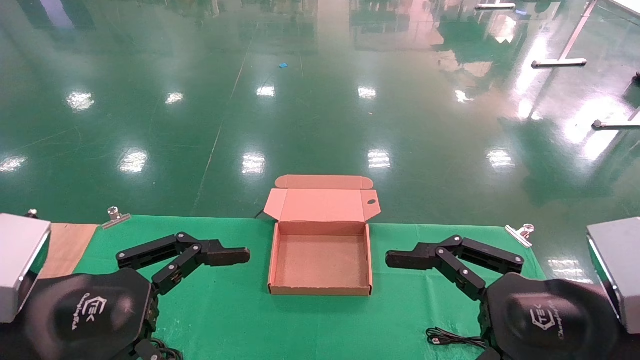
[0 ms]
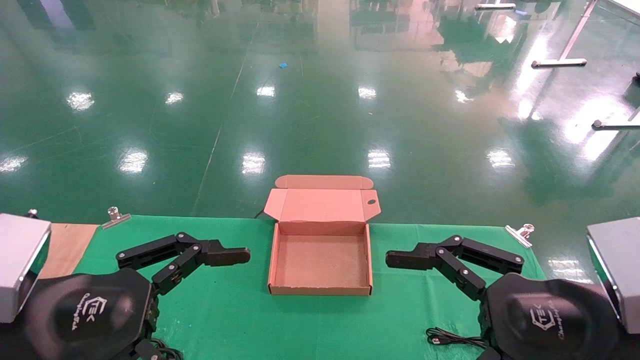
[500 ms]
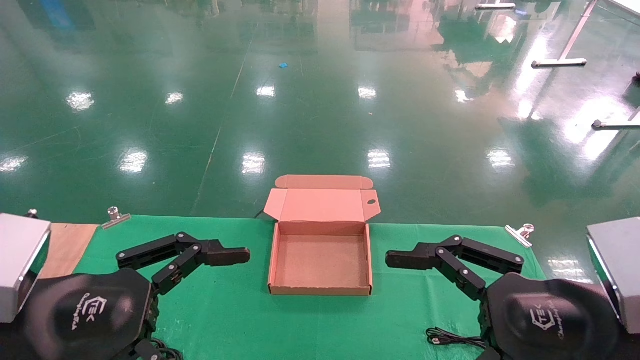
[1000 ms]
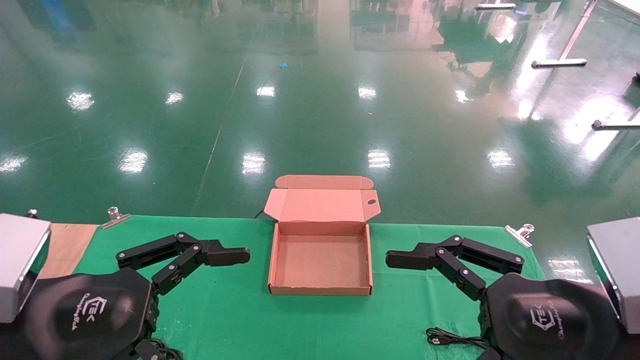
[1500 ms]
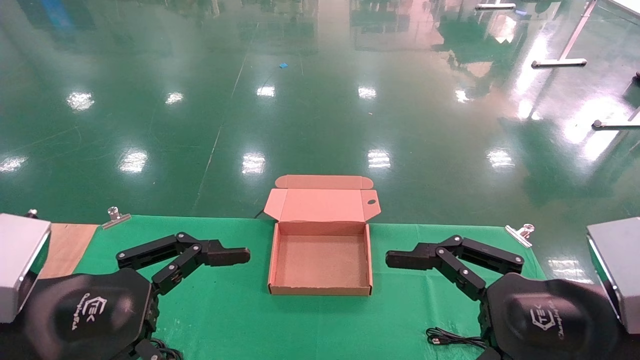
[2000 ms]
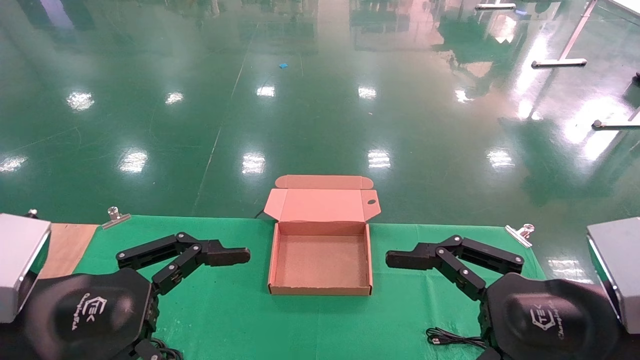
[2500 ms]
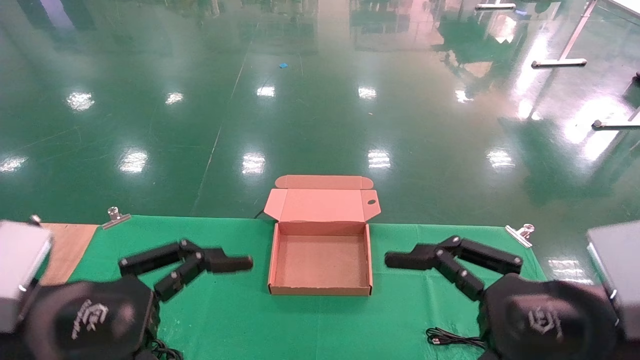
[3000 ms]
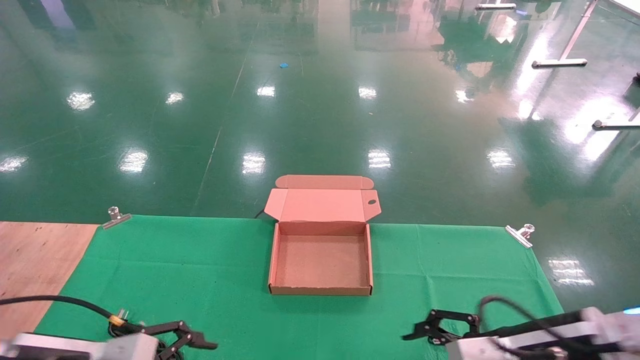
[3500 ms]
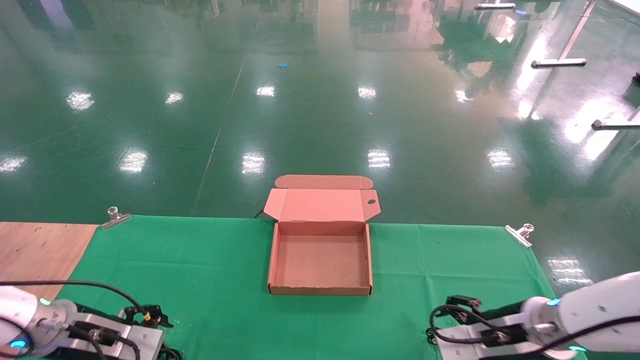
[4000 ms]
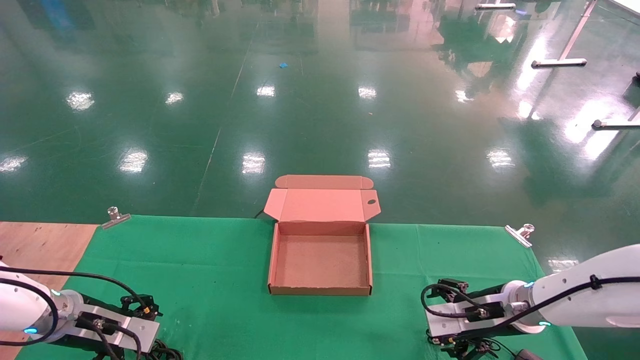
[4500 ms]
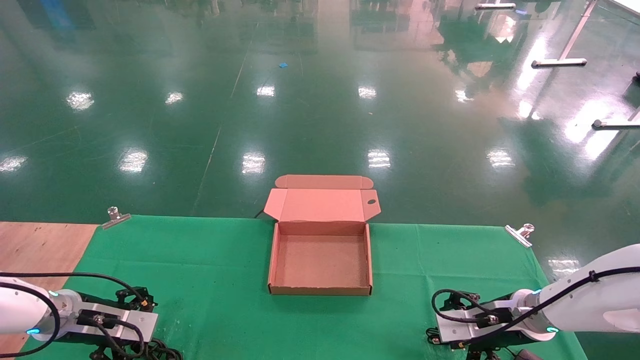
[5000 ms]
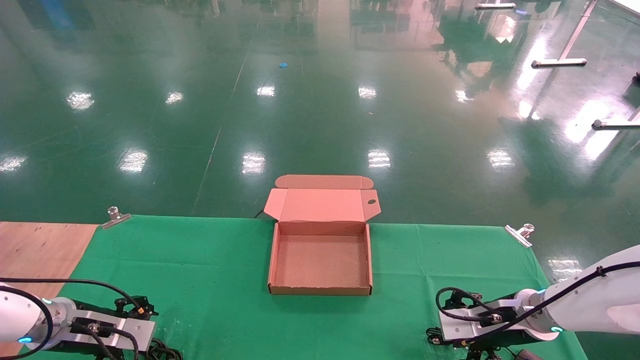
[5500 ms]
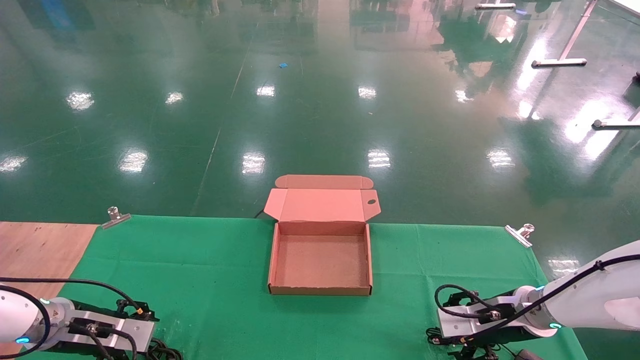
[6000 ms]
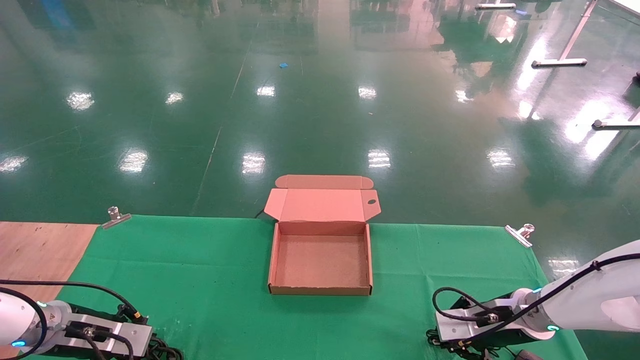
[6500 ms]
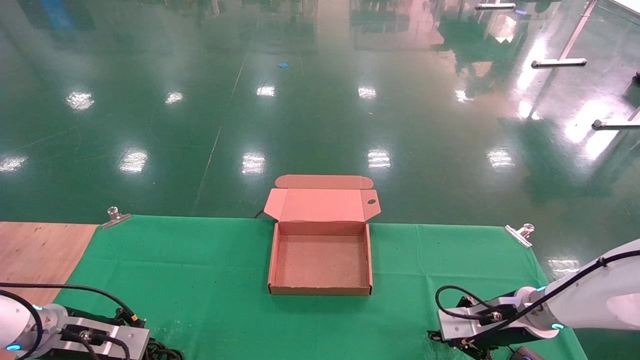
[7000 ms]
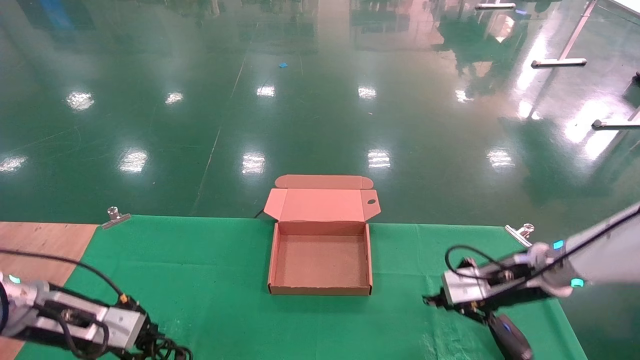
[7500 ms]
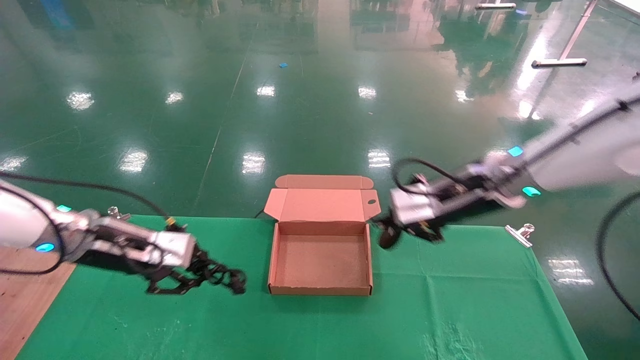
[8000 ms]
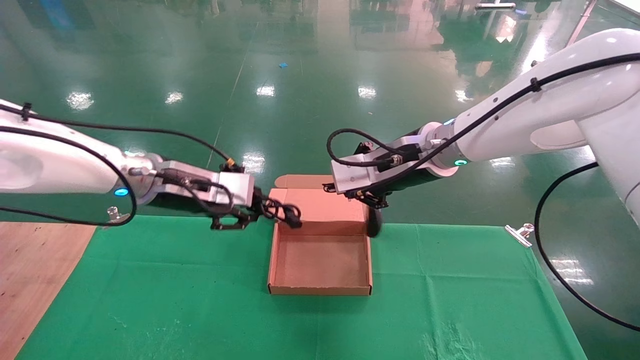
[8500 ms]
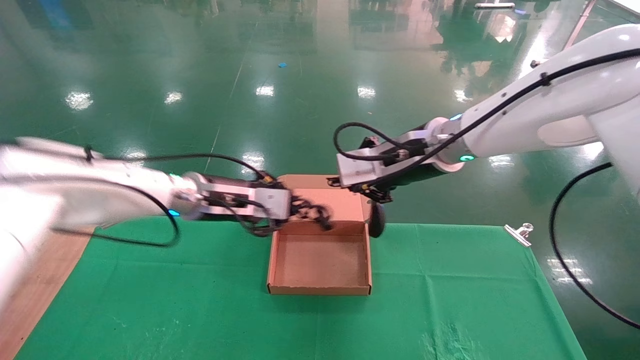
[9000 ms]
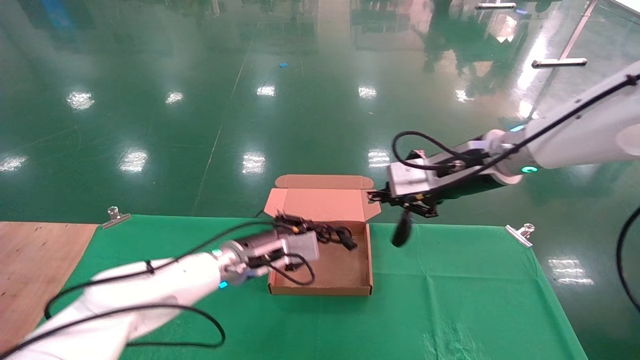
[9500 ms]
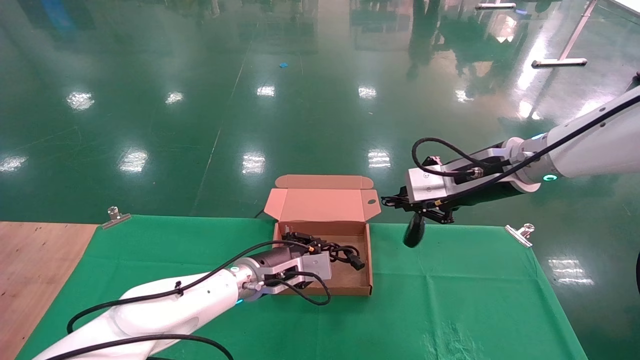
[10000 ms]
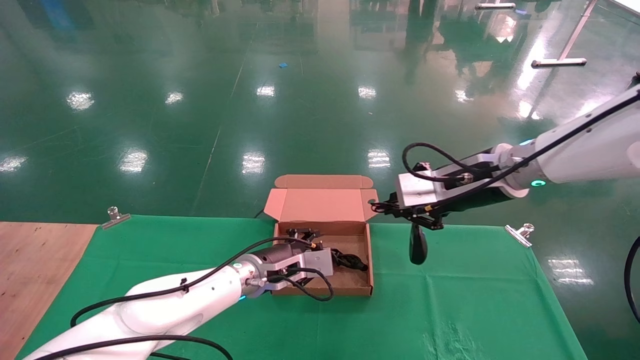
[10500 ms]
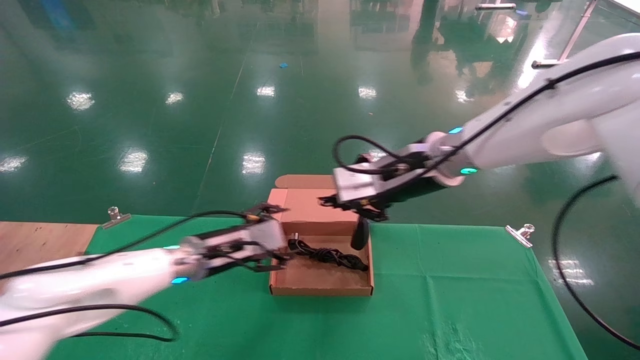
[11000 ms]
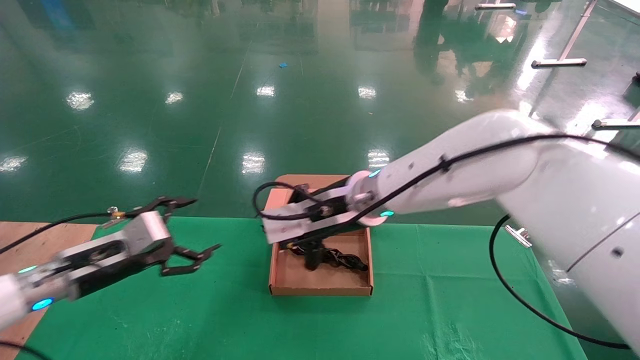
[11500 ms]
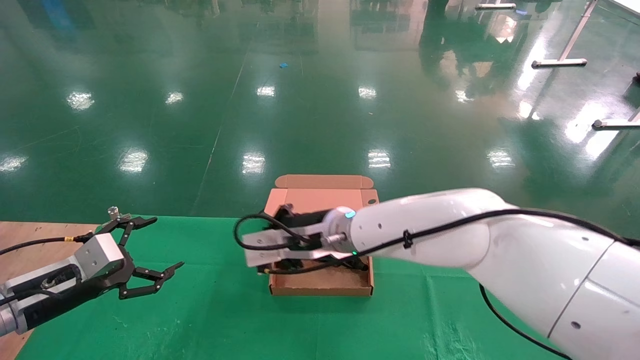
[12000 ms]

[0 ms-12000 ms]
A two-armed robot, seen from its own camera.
Step, 4000 ms to 7500 ms: Grab and lift both the mouse and power cord from the accessory packaging area at the same time.
0 ms to 2000 ms: Neither gripper changes place.
2000 ms to 4000 ms: The left gripper shifts some 25 cm forward, downward and to the left. The right gripper goes approximately 20 cm forward and downward.
4000 ms to 6000 ms: The left gripper ends up some 5 cm from where it was, while the right gripper moves forward, about 5 cm.
6000 ms to 8000 ms: The right gripper shifts about 25 cm upward and to the left, and closes up; the left gripper moves upward and to the right, approximately 20 cm, and closes.
8000 ms to 10000 ms: The right gripper travels to the left and back again, roughly 5 cm each way; the left gripper shifts some 25 cm to the right, downward and forward.
10000 ms to 12000 ms: The left gripper shifts roughly 30 cm to the left, and opens. Meanwhile the right gripper shifts about 25 cm to the left and downward.

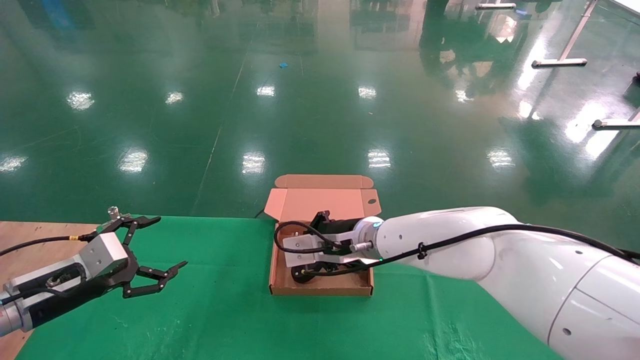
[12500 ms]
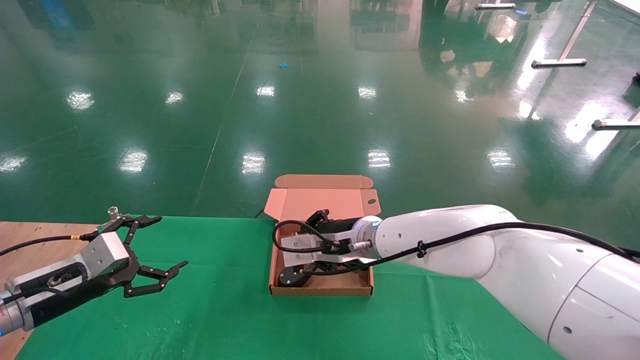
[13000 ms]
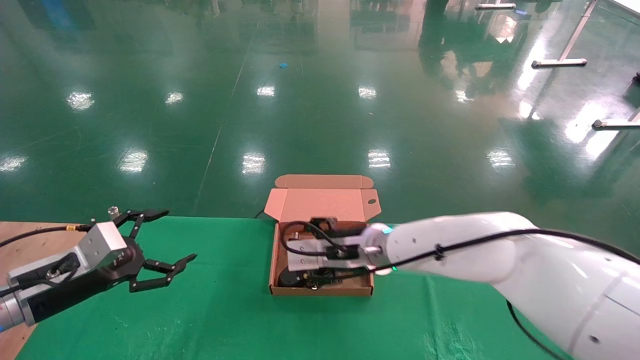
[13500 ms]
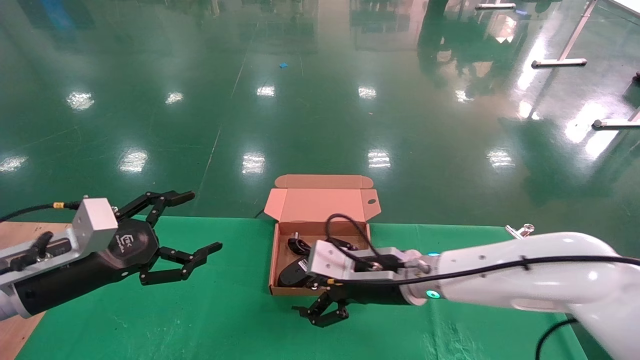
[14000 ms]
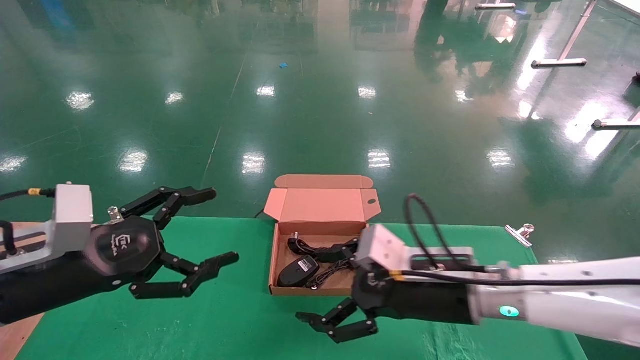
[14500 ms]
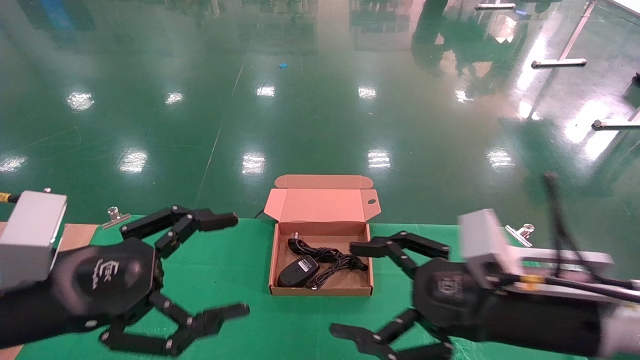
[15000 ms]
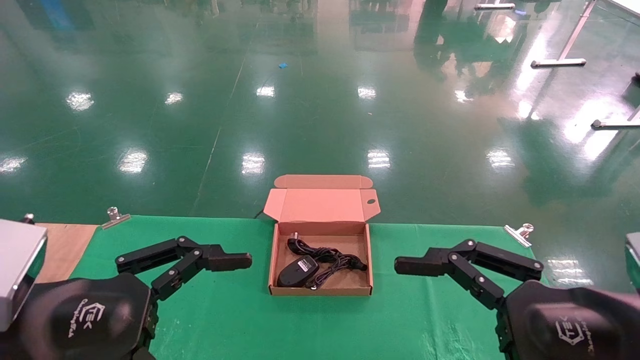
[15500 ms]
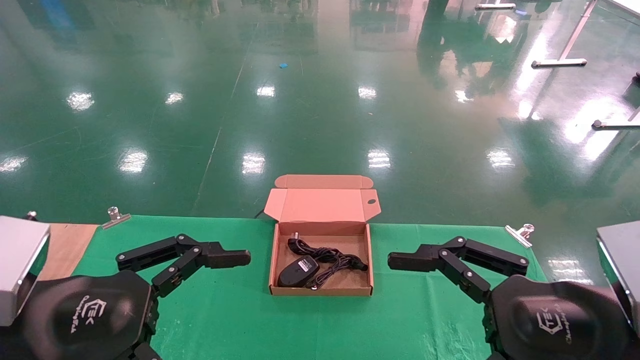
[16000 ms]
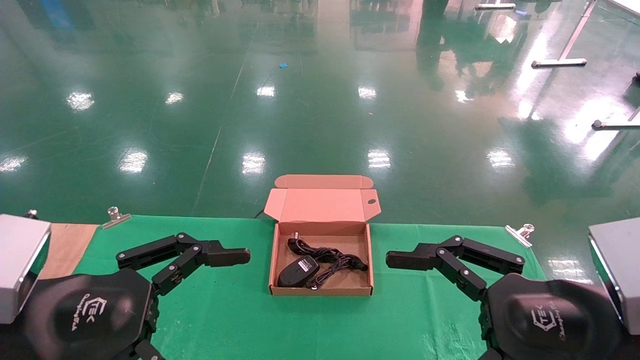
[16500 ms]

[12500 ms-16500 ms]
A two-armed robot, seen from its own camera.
12500 ms to 14500 ms: The right gripper is displaced backward and to the right by approximately 15 cm, and opens its fingers. The left gripper goes some 15 cm to the right, upward and backward.
14500 ms to 16500 ms: The left gripper moves backward, about 10 cm; the right gripper is displaced backward and to the right by roughly 20 cm.

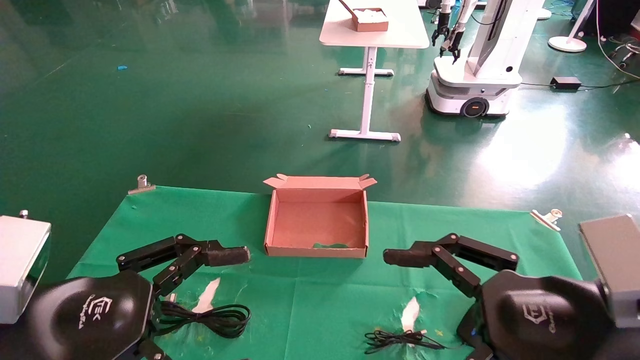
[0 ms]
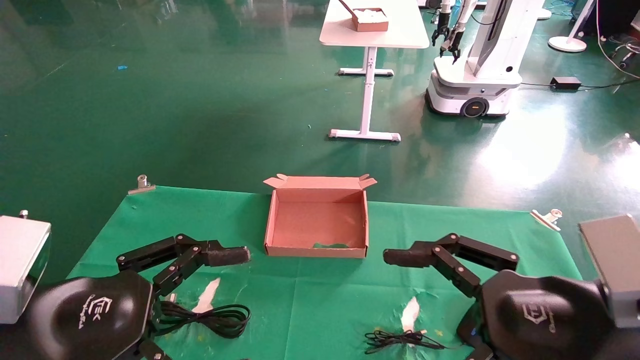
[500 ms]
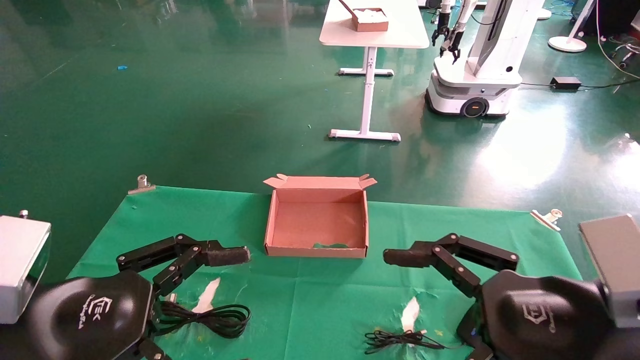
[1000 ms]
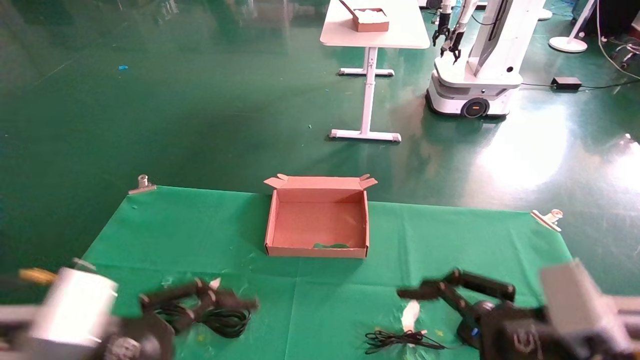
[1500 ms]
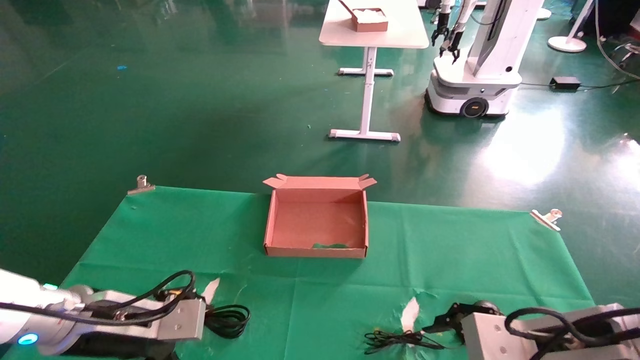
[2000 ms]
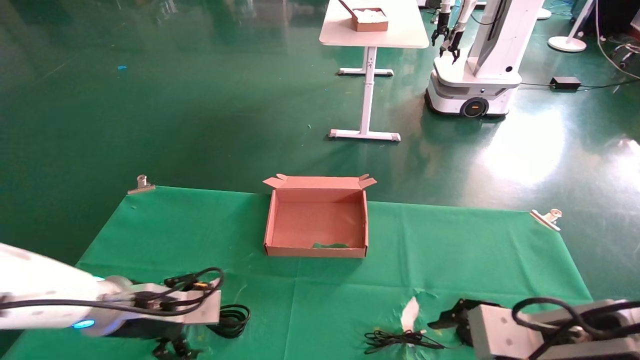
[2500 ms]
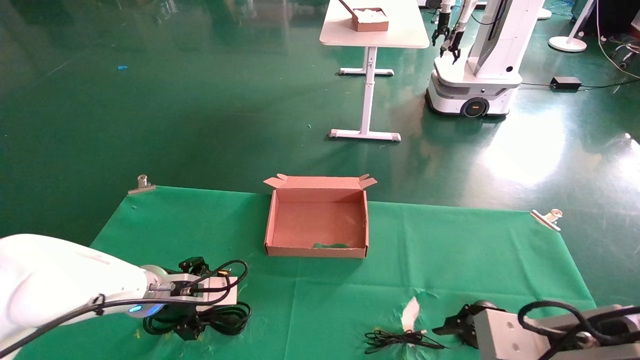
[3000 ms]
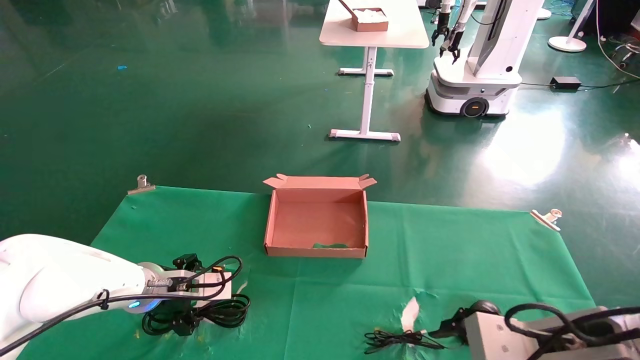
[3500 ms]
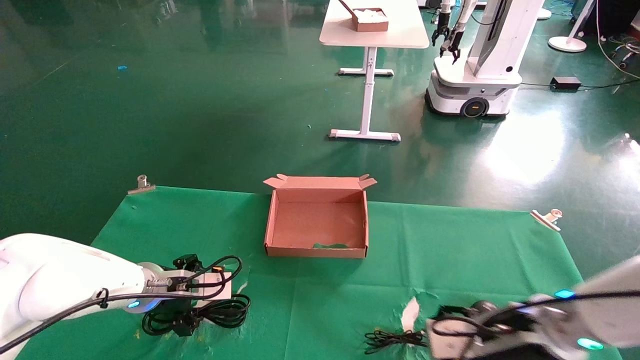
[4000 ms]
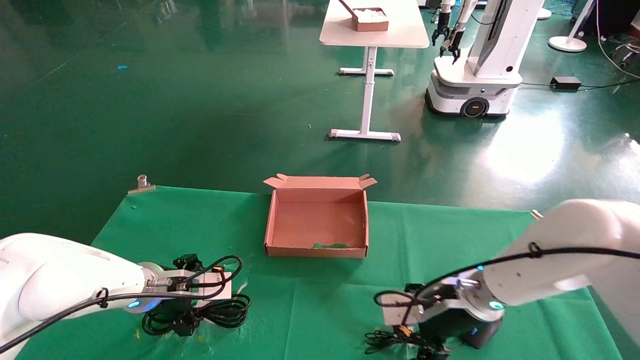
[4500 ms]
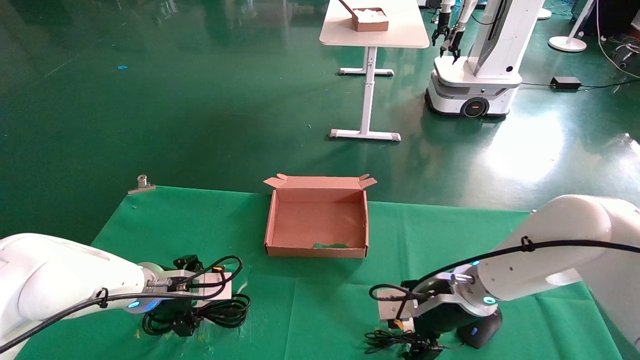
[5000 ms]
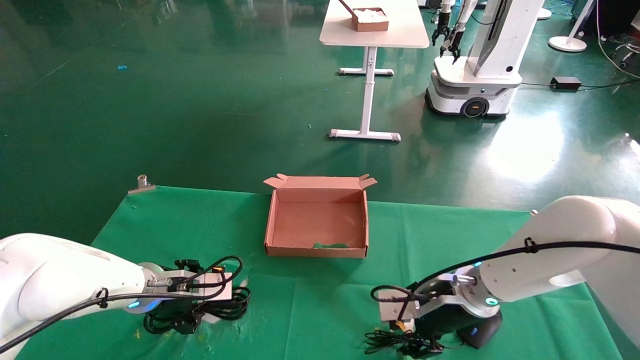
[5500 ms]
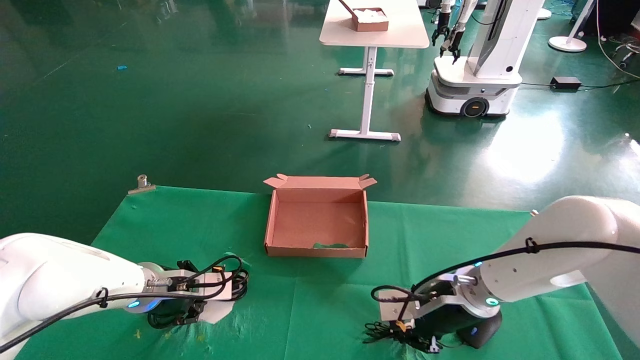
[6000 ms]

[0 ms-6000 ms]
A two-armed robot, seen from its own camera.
0 ms to 2000 ms: The left gripper travels forward and downward by roughly 15 cm. The right gripper heads forward and downward, covering about 10 cm.
2000 ms to 4000 ms: The right gripper travels forward by roughly 10 cm; the left gripper is displaced forward by approximately 10 cm.
4000 ms to 6000 ms: The right gripper travels forward by some 10 cm, and closes up; the left gripper closes up.
